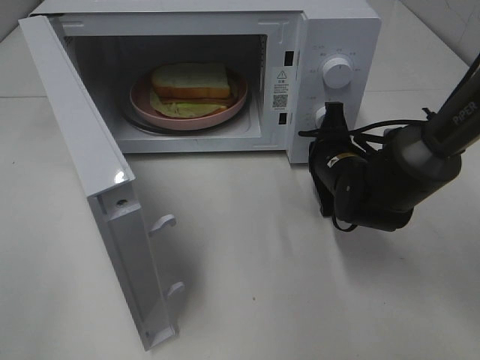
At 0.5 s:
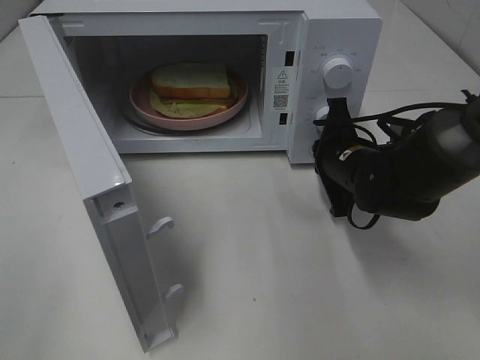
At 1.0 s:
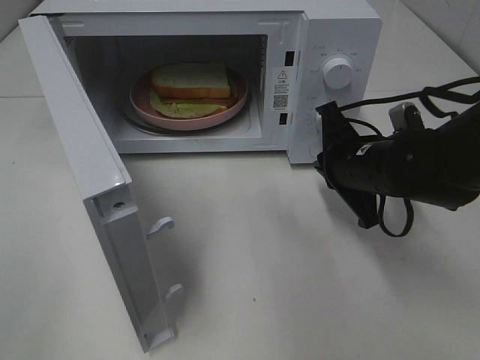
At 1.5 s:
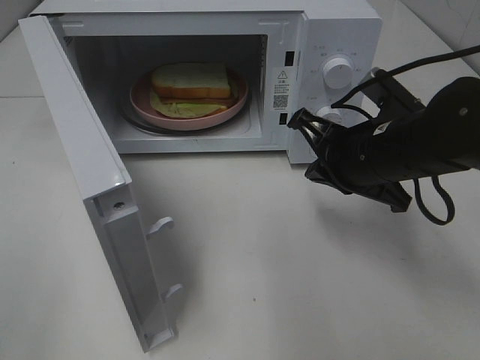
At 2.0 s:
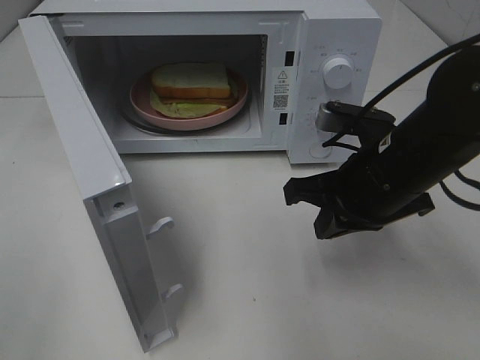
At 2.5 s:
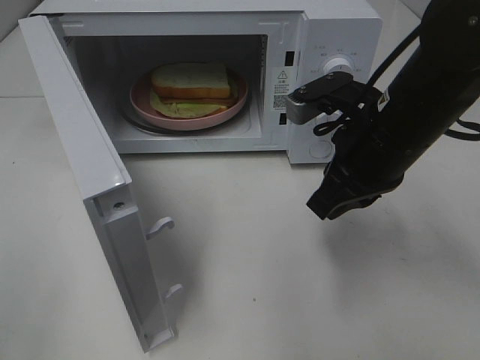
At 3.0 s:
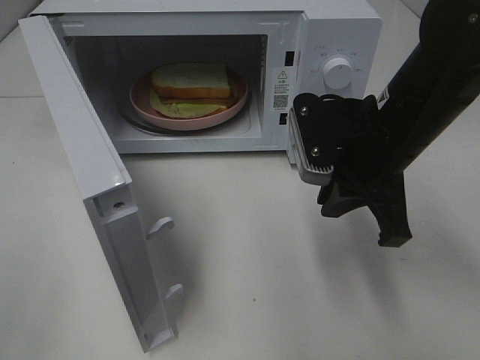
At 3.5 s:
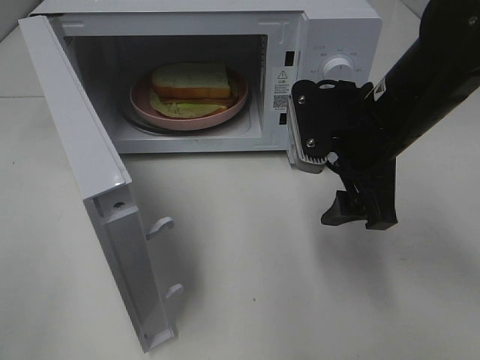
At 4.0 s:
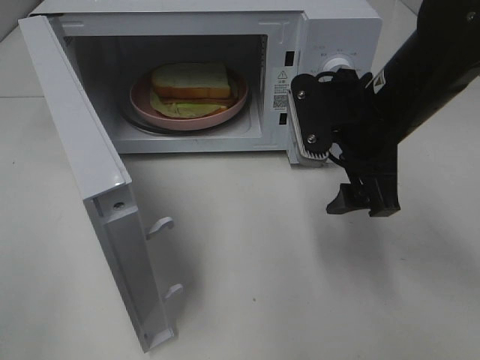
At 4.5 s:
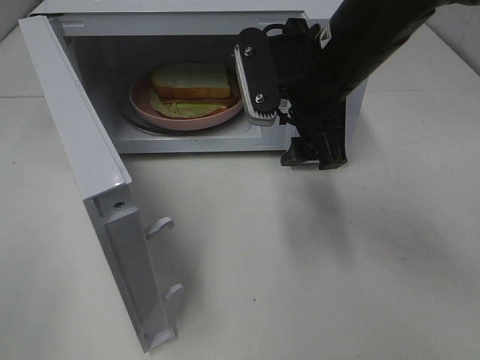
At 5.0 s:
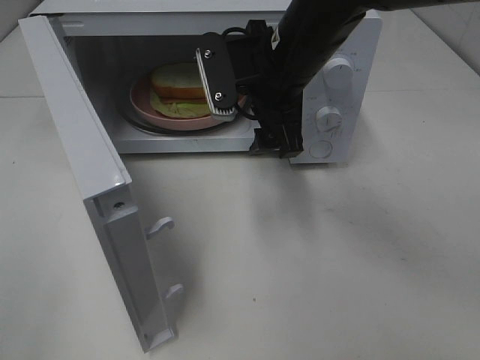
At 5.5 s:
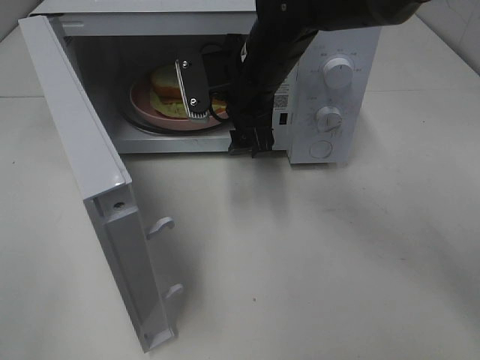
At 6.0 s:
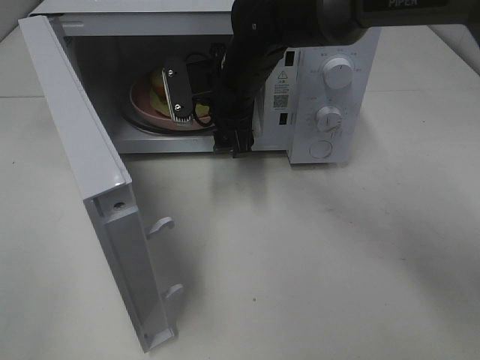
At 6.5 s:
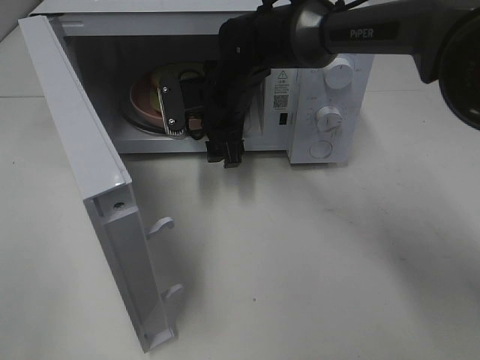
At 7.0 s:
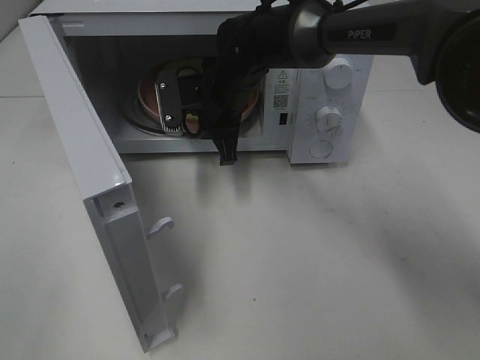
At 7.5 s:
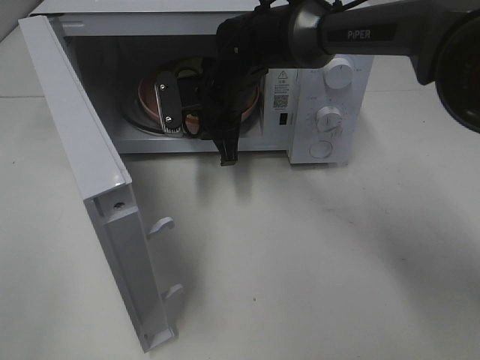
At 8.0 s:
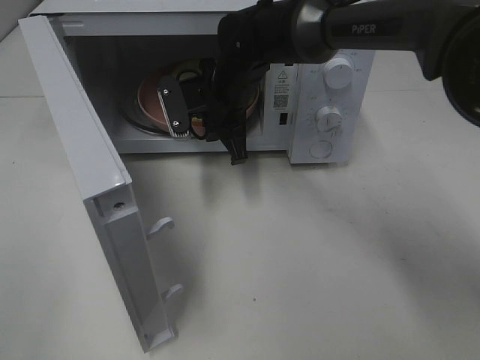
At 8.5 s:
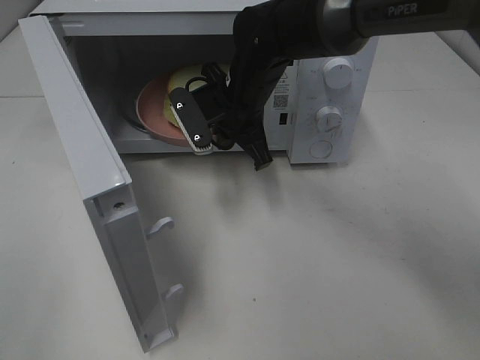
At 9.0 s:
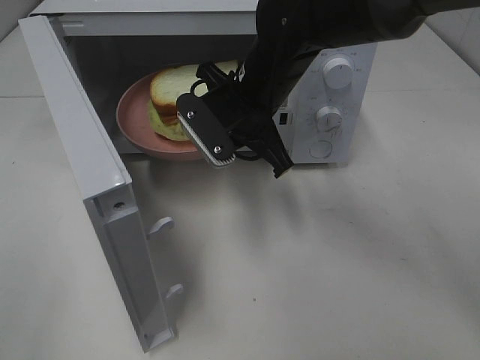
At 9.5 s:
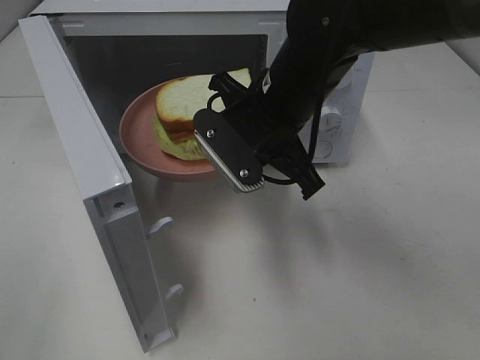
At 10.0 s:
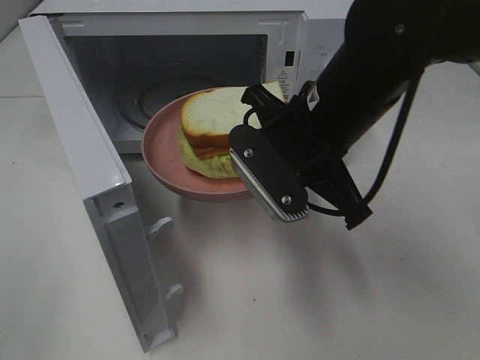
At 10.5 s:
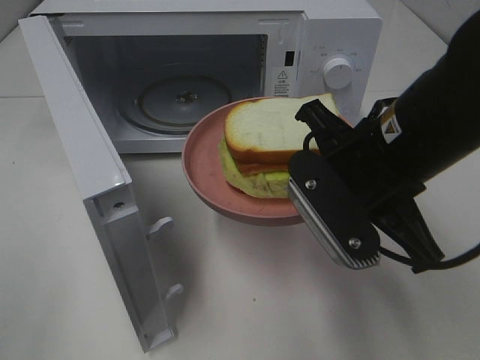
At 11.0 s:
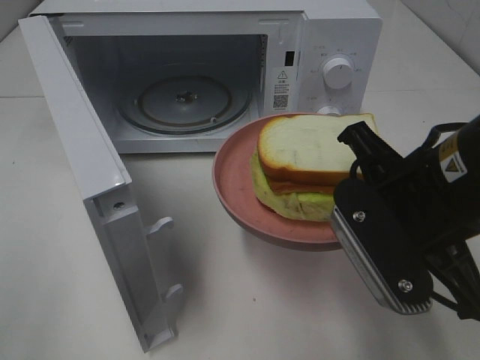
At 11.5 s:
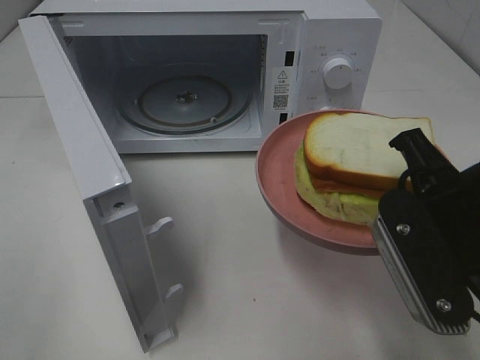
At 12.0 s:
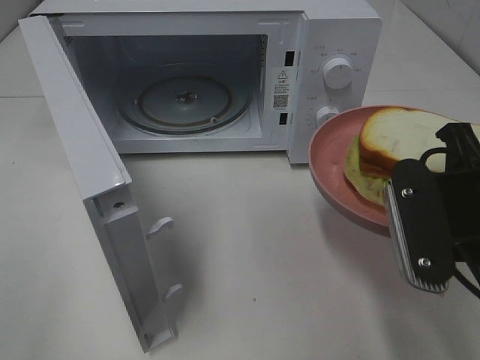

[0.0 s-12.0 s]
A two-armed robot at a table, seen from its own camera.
Task of the whole recording: Heat Sandwich.
Step, 1.0 to 8.0 s: Right hand: grab the plate with the sandwich.
0.0 to 2.0 s: The right gripper moves backward and upward, some 15 cm.
2.0 to 4.0 s: The right gripper ends up roughly 5 cm from where it was, and opens up.
4.0 to 6.0 s: The right gripper is displaced to the left and forward by approximately 20 cm.
6.0 to 8.0 s: The right gripper closes.
8.0 to 10.0 s: The right gripper moves backward and to the right, roughly 20 cm.
10.0 to 12.0 s: The right gripper travels to the right and backward by approximately 15 cm.

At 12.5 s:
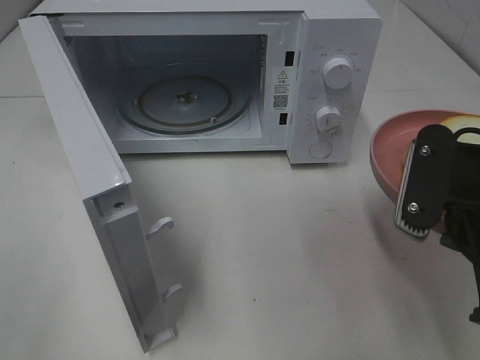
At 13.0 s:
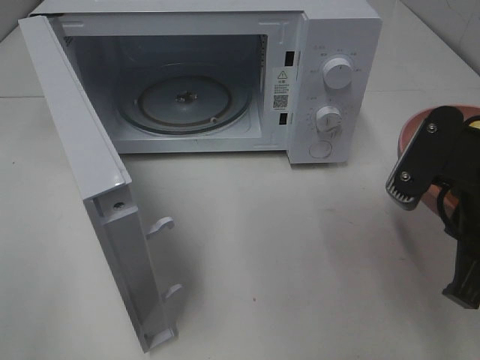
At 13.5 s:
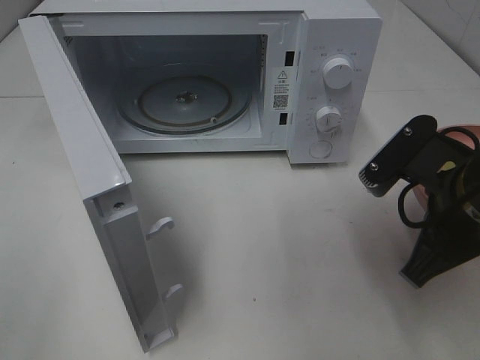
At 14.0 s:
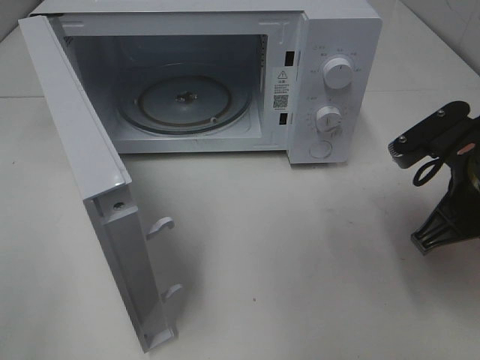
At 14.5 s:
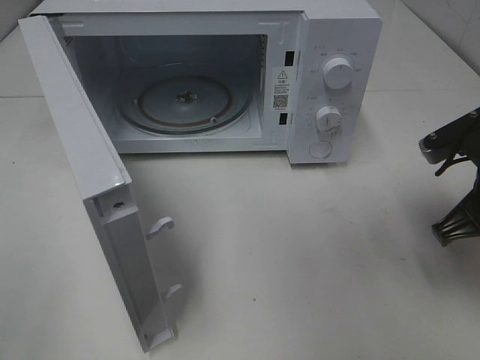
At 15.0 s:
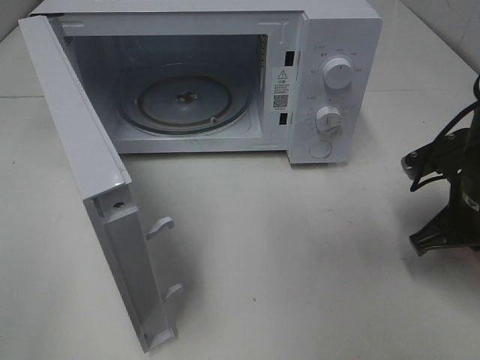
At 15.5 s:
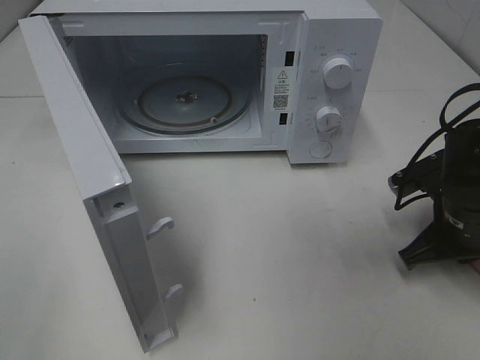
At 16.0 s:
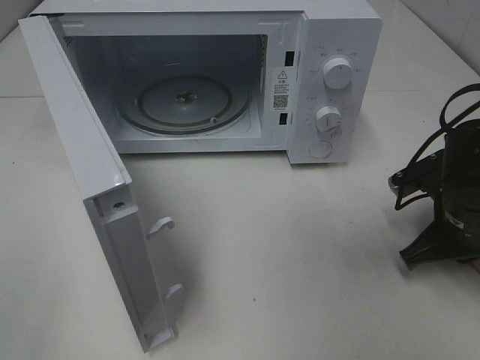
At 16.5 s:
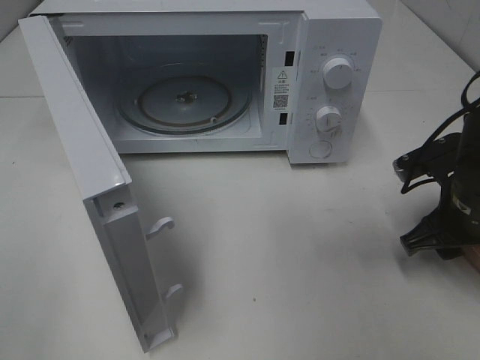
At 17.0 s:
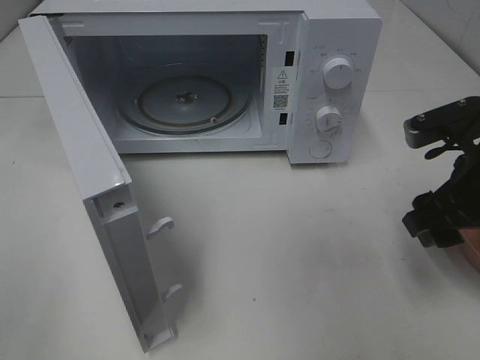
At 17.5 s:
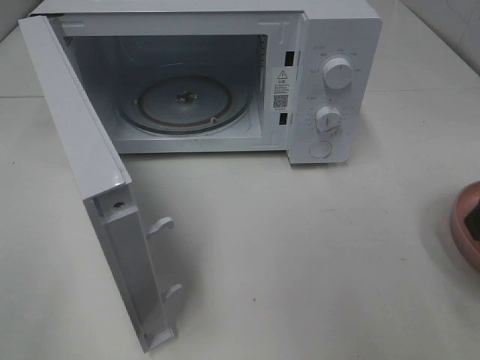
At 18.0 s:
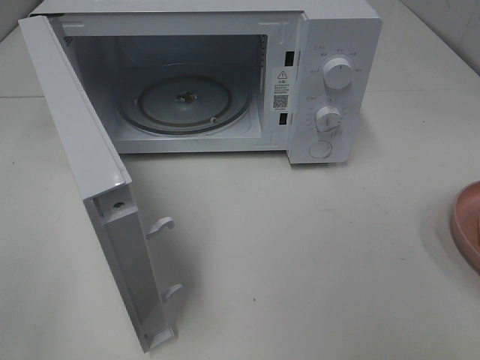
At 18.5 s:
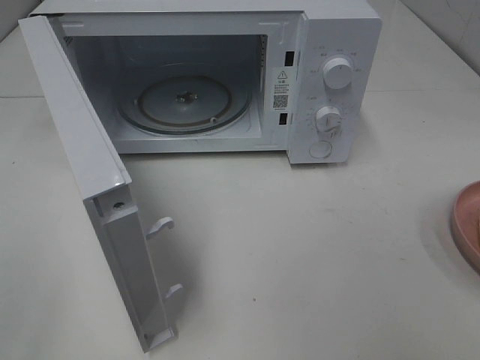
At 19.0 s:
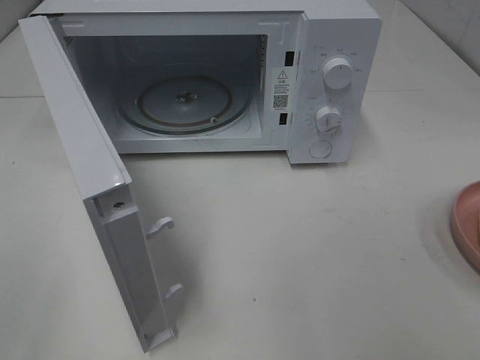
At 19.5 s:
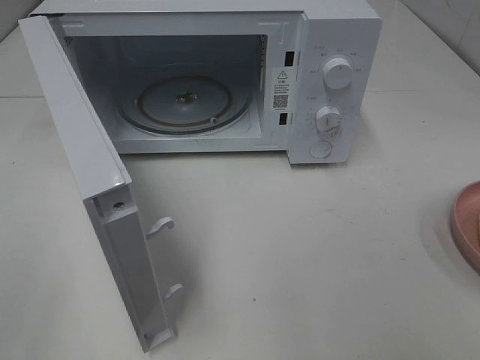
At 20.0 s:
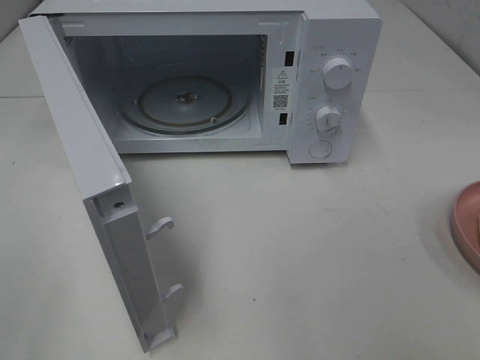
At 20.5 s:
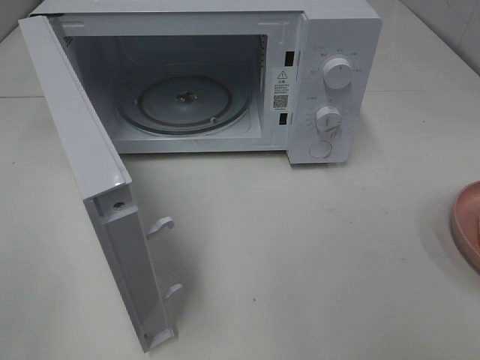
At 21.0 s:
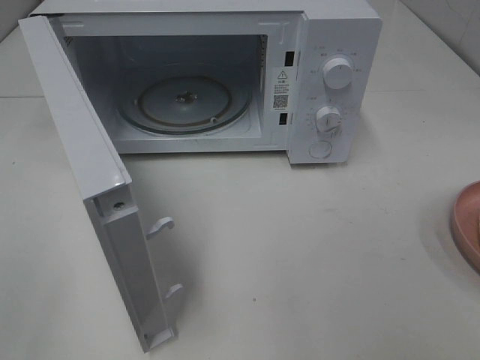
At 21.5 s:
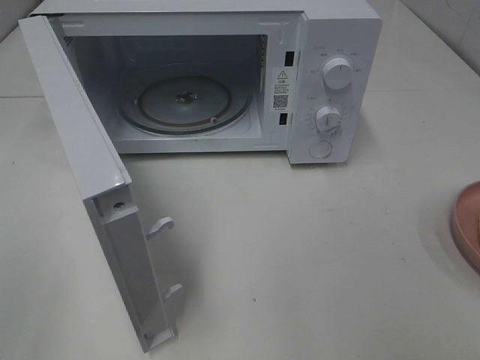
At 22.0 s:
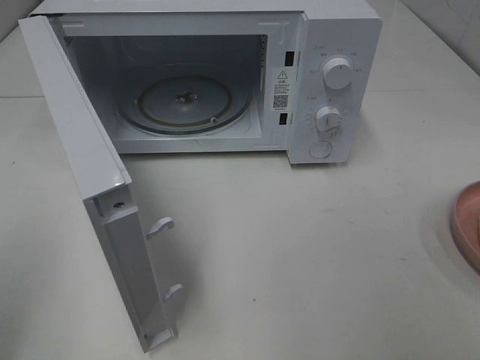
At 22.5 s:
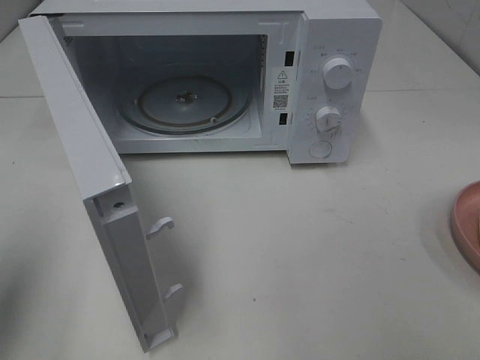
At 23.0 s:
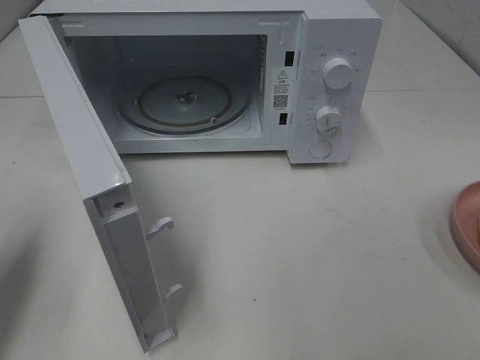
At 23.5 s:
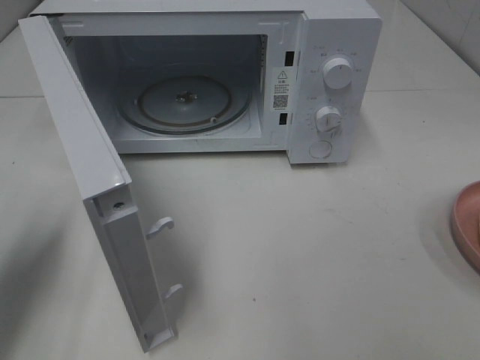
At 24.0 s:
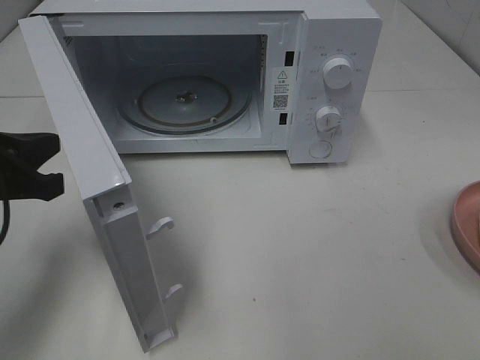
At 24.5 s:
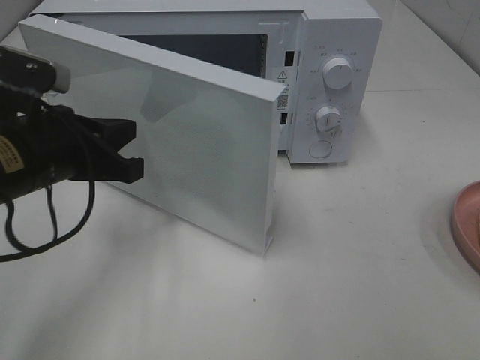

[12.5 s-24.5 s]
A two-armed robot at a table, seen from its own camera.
Task of the whole recording: Heat Sandwich.
Step, 12.5 to 17.0 s: Right hand: place the plate on the table.
12.5 to 14.5 s: The right gripper heads forward, downward and to the right, covering about 10 cm.
14.5 to 16.5 s: The right gripper opens up.
16.5 to 18.5 s: The right gripper travels backward and upward by about 25 cm.
20.5 to 22.5 s: The left gripper shifts roughly 15 cm forward, and closes.
22.5 to 24.5 s: The left gripper heads to the right, forward and downward, covering about 20 cm.

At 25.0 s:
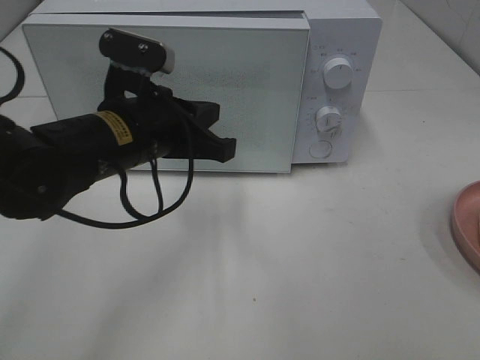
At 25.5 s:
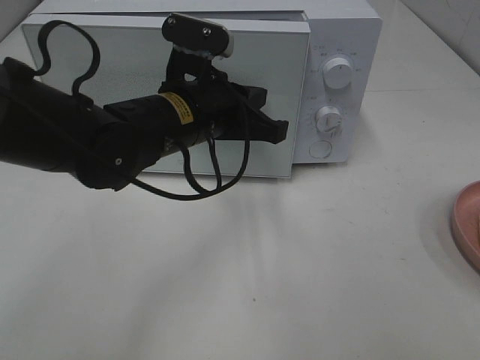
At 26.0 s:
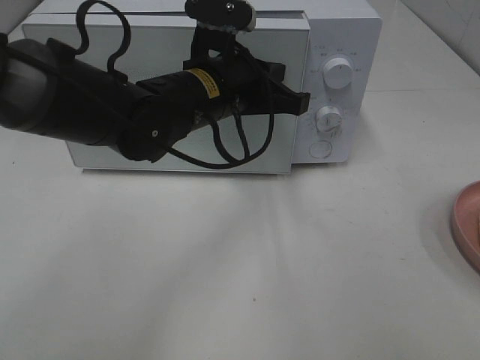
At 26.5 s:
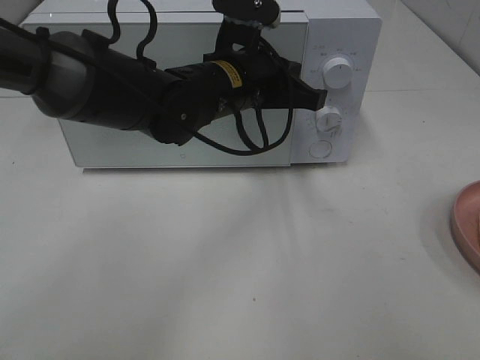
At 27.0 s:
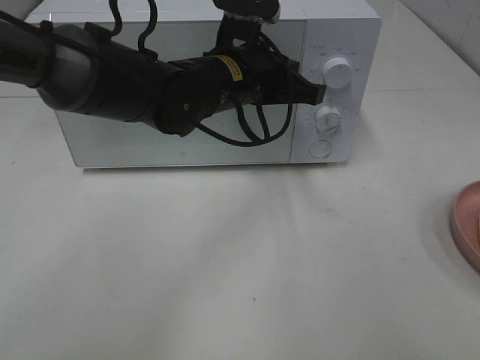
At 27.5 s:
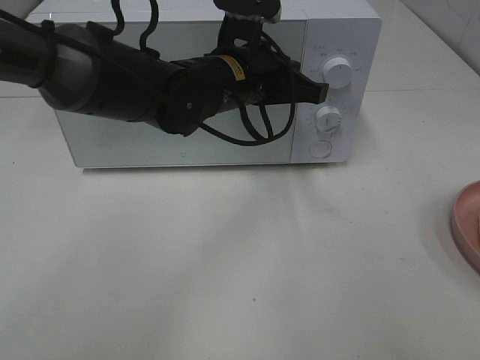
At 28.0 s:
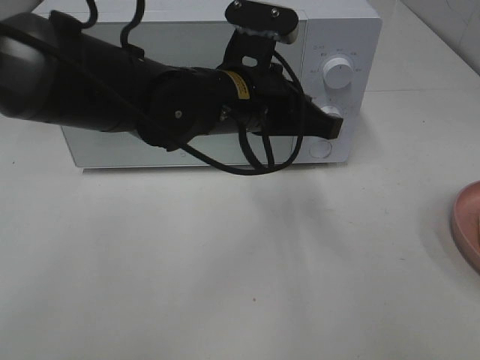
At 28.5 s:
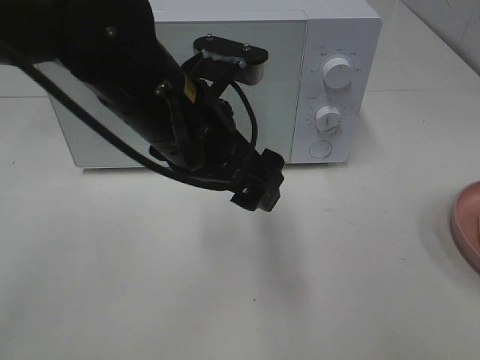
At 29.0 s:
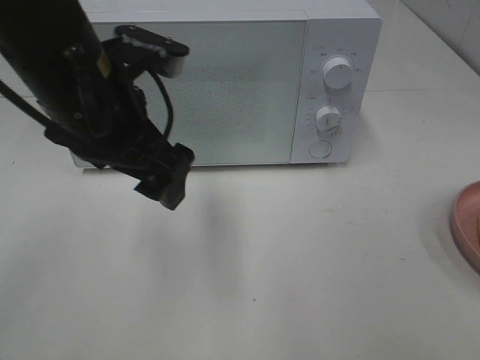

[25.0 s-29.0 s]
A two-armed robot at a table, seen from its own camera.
Task of the whole recording: Heat Sandwich.
Step, 25.0 to 27.5 s: Left hand: close the microwave door.
25.0 to 27.0 s: The left gripper goes roughly 15 cm to the right and forward.
27.0 to 29.0 s: The left gripper is displaced to the left, backward and upward by about 15 cm, and opens its fingers.
